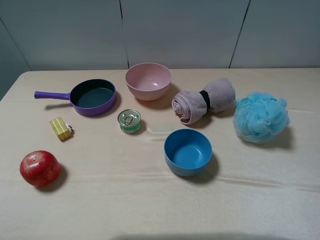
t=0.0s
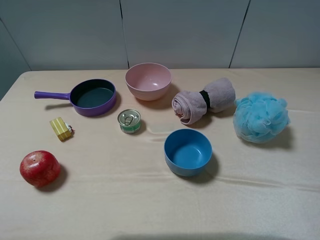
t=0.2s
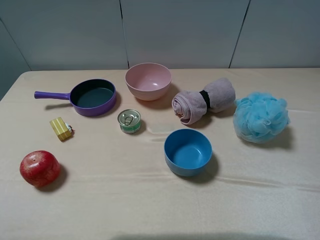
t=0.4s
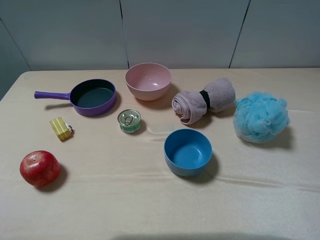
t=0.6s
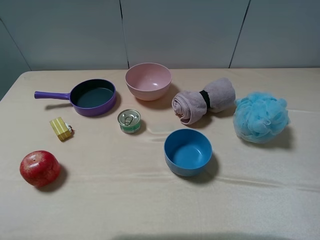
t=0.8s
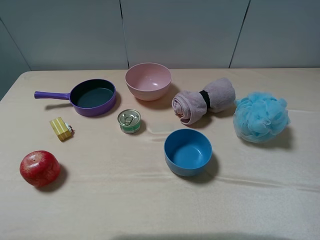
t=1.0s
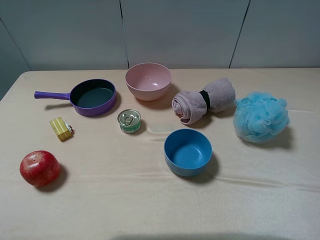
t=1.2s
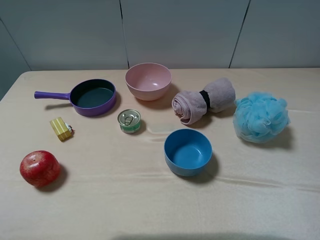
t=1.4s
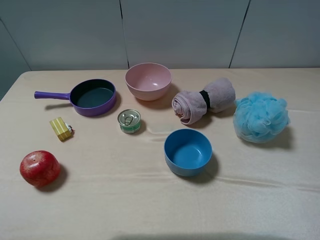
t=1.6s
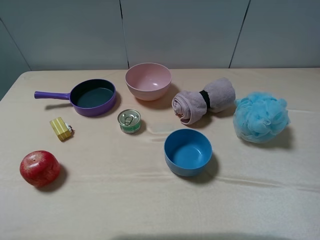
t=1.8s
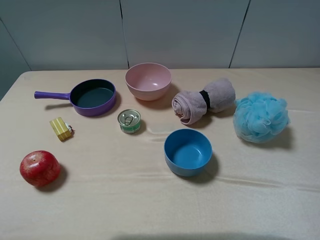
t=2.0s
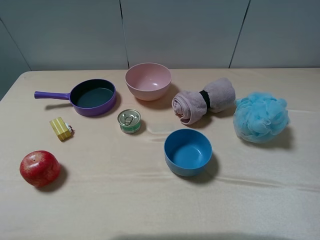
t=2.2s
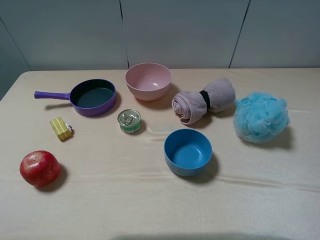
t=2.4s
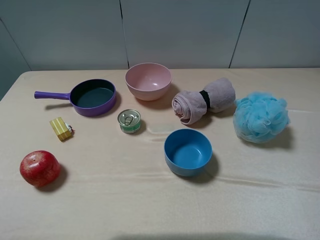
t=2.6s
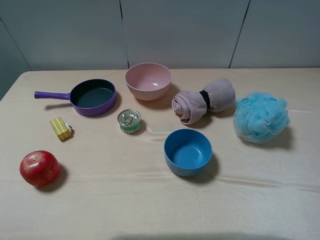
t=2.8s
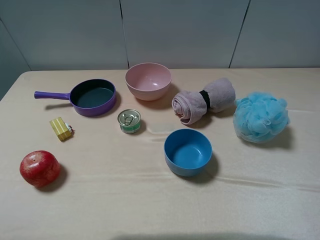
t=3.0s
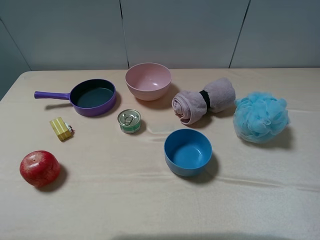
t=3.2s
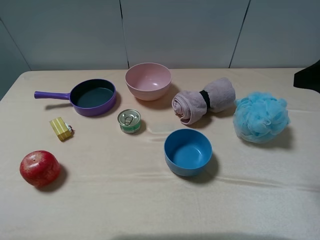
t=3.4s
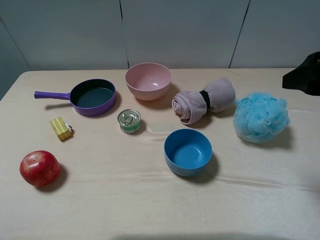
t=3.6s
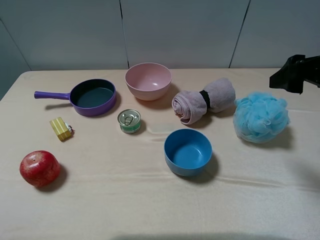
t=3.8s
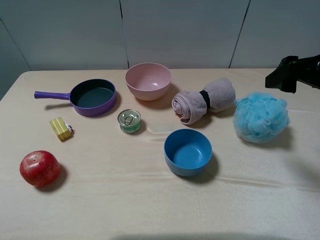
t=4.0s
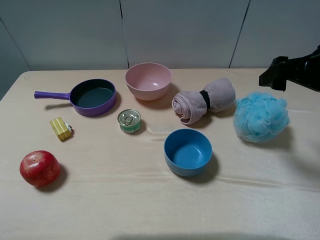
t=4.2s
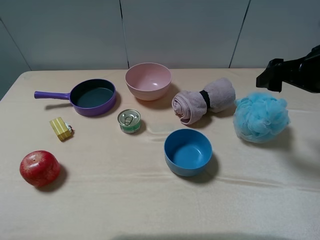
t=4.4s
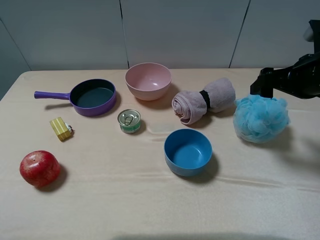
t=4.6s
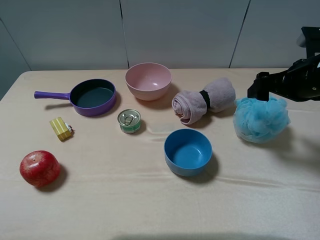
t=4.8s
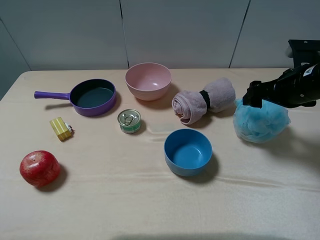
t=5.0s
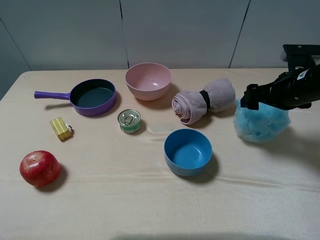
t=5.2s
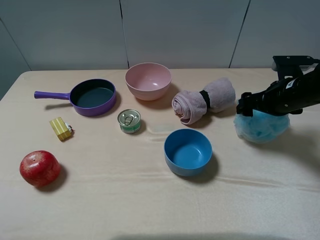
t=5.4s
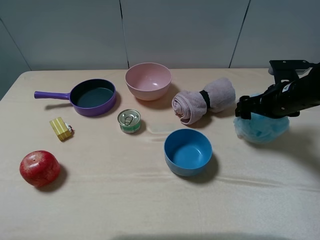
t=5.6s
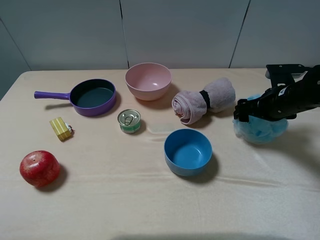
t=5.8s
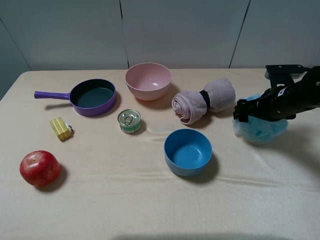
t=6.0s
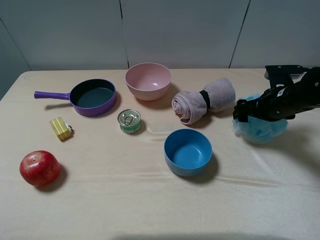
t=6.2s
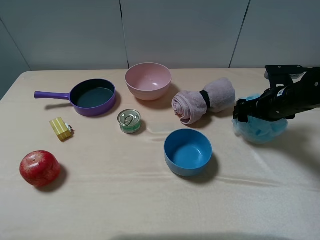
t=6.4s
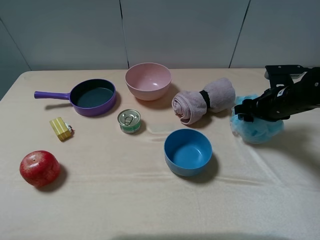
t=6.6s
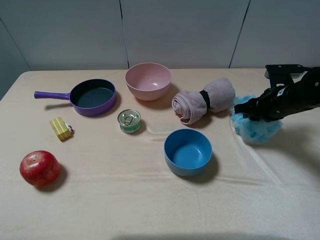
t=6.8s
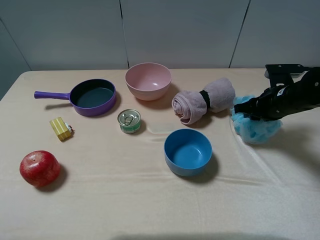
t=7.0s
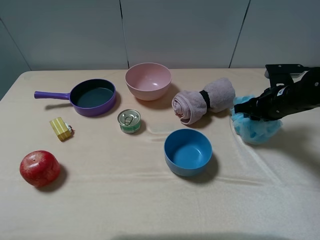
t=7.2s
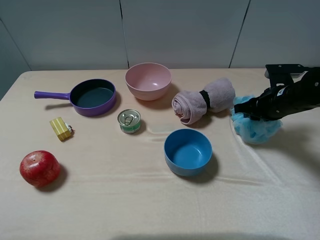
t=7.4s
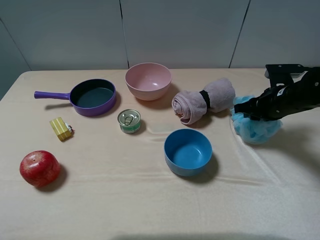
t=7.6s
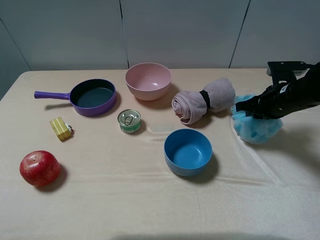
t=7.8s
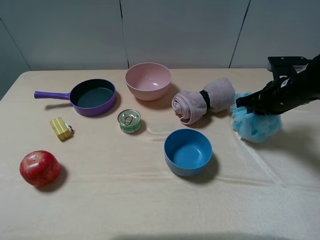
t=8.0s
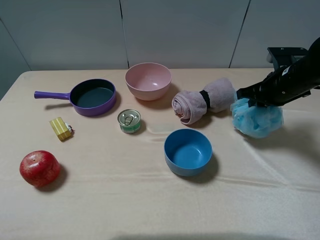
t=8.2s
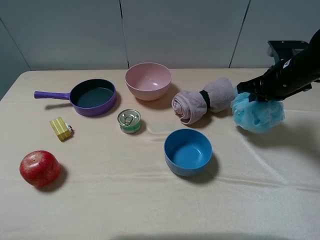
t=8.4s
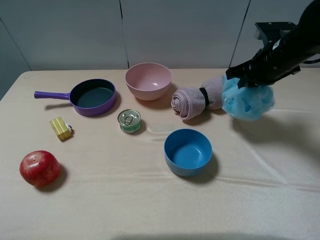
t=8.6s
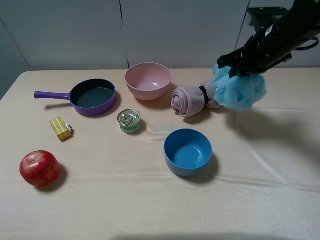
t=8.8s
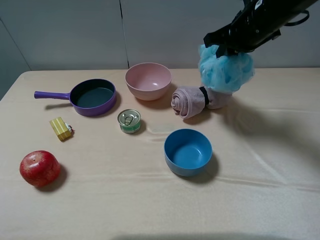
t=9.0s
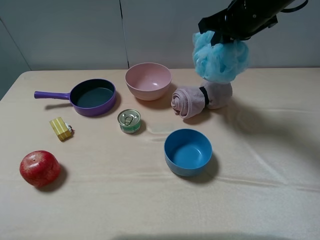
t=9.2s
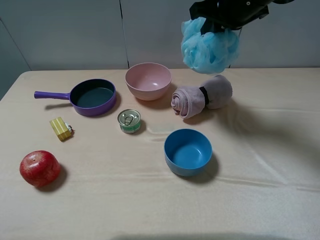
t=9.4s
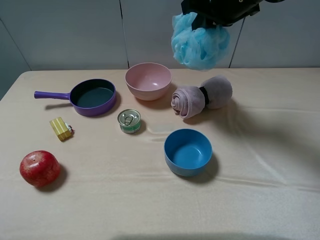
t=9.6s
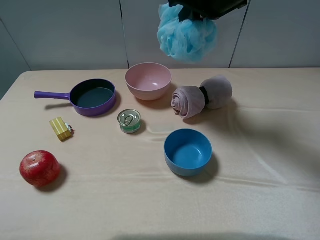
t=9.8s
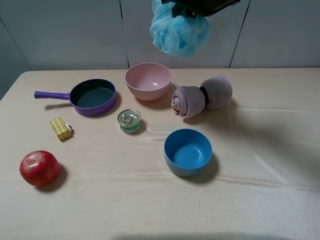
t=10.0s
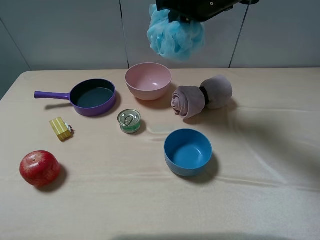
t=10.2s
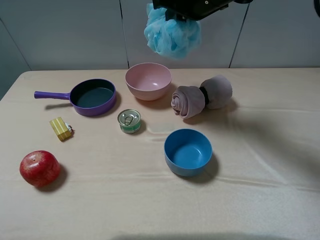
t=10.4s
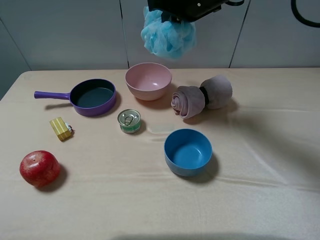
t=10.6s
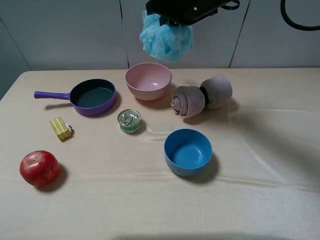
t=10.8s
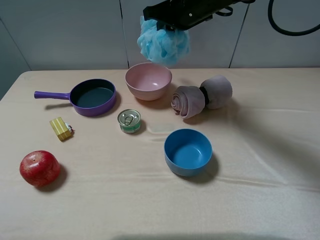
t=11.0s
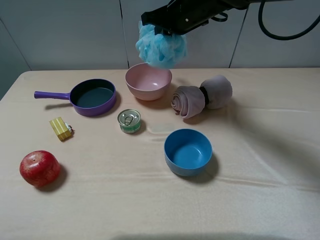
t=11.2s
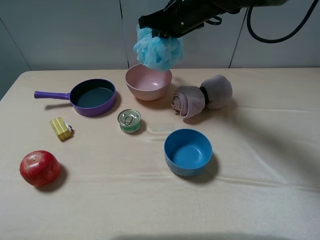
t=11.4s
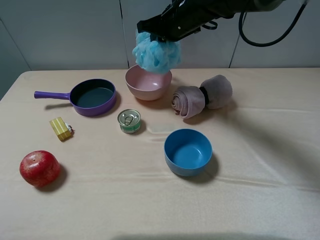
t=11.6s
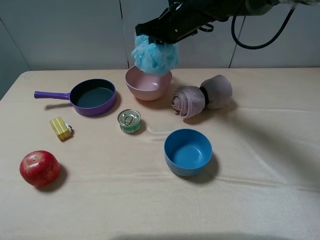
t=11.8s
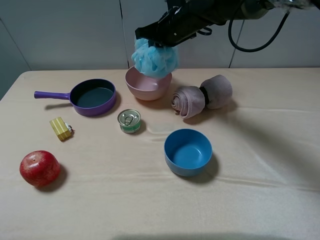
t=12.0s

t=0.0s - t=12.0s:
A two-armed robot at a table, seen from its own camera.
Task of the whole recording: pick up an item with a gripper and place it in a random container on the table.
Step, t=0.0s - t=6.8s: Grasp the shower sphere with the right gripper.
t=0.0s - t=1.6s: Both grippers stay put.
t=3.0s - t=4.4s: The right gripper moves forward and downward, approximately 20 cm.
t=4.4s - t=6.0s: The right gripper moves downward and forward, some 15 cm.
t=6.0s - t=7.6s: The right gripper closes up.
t=7.6s - t=9.0s: The right gripper is displaced upward and to the left by roughly 20 cm.
t=9.0s - t=10.4s: The right gripper travels to the left by about 10 cm.
t=10.4s - t=12.0s: The right gripper heads downward and forward, covering approximately 10 cm.

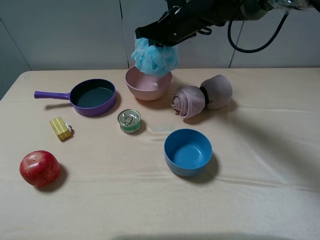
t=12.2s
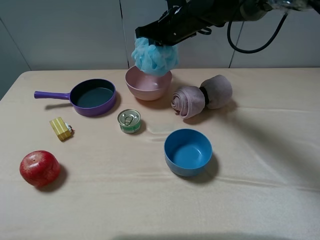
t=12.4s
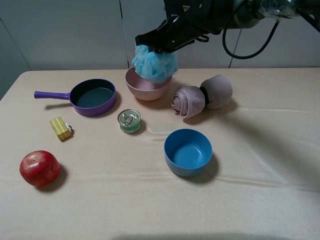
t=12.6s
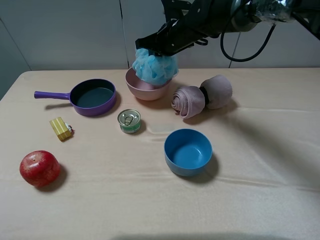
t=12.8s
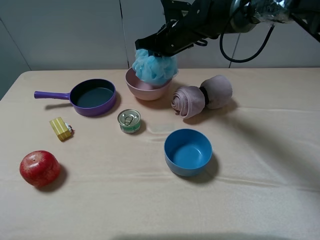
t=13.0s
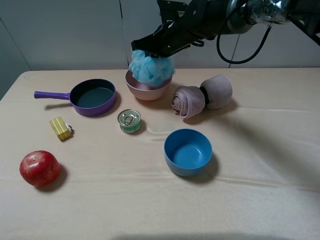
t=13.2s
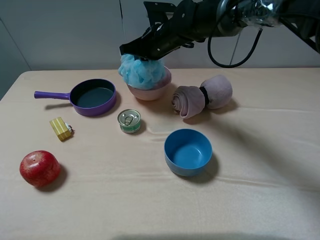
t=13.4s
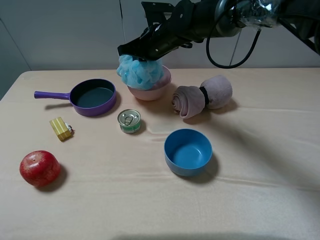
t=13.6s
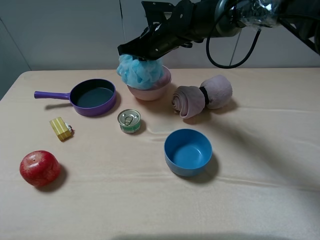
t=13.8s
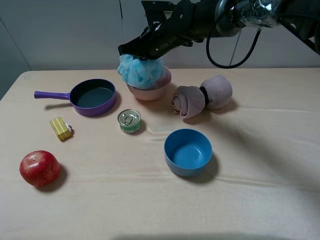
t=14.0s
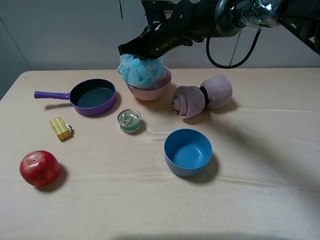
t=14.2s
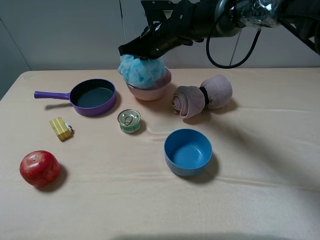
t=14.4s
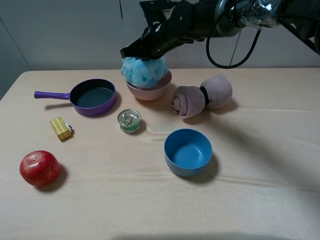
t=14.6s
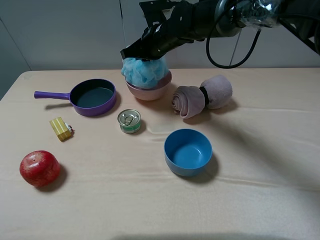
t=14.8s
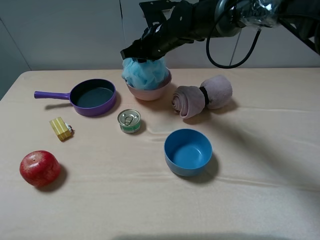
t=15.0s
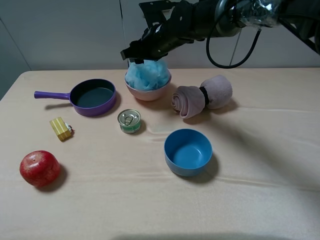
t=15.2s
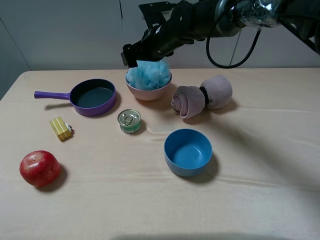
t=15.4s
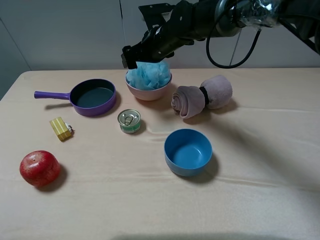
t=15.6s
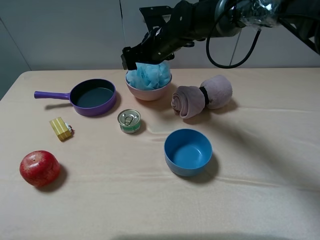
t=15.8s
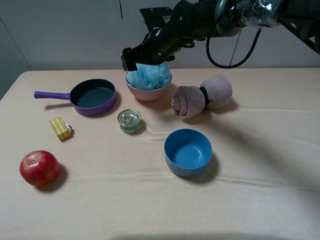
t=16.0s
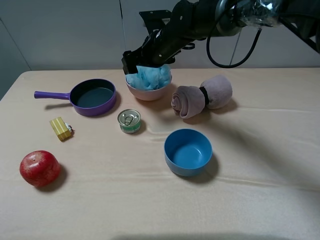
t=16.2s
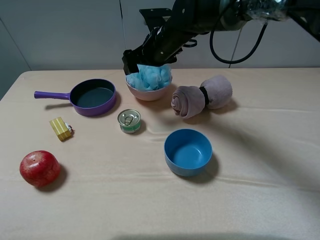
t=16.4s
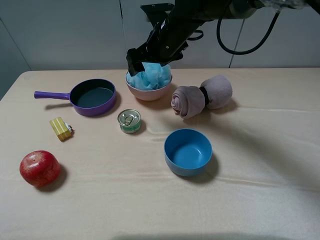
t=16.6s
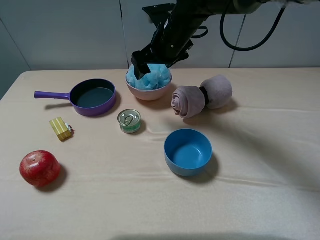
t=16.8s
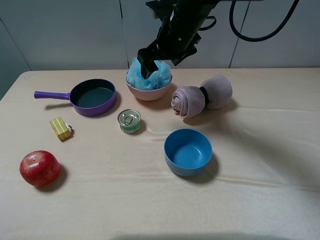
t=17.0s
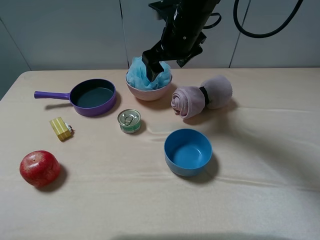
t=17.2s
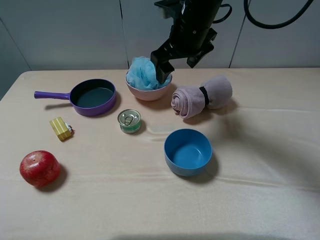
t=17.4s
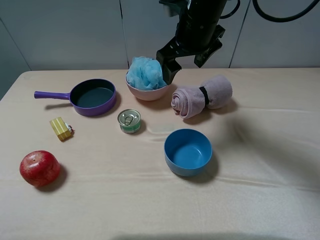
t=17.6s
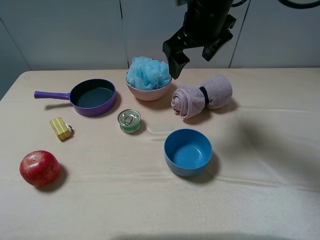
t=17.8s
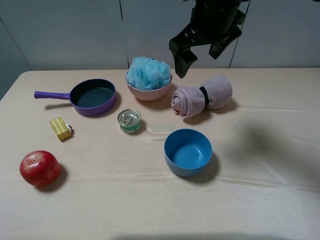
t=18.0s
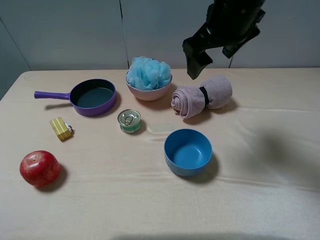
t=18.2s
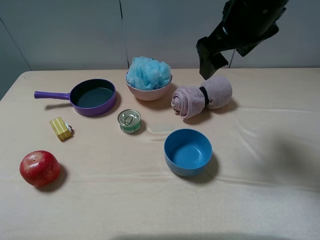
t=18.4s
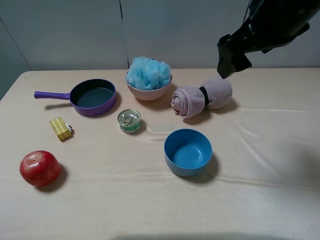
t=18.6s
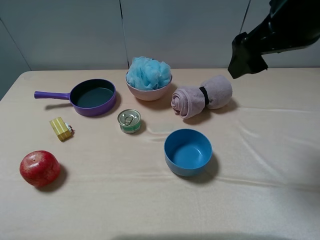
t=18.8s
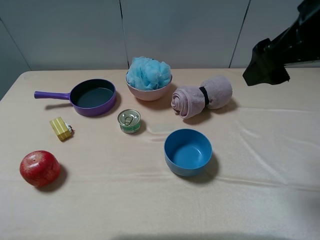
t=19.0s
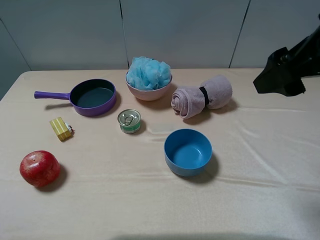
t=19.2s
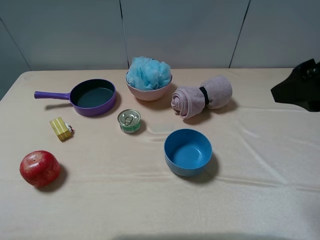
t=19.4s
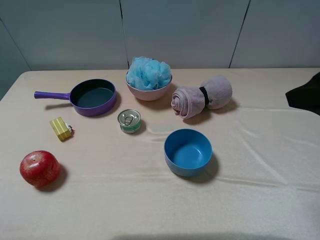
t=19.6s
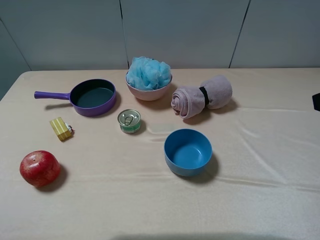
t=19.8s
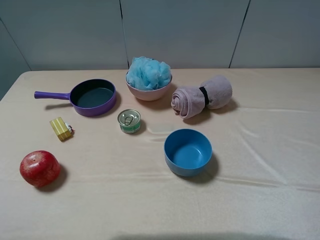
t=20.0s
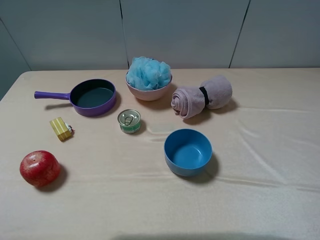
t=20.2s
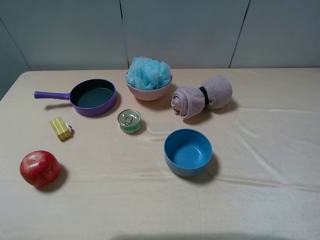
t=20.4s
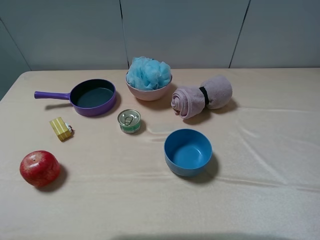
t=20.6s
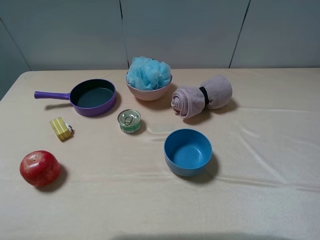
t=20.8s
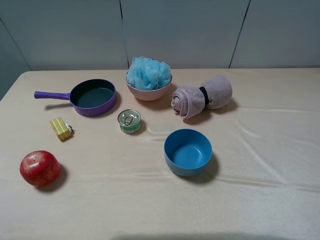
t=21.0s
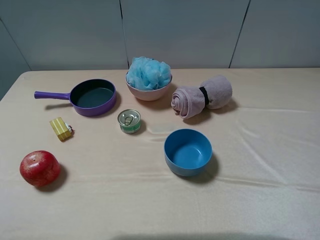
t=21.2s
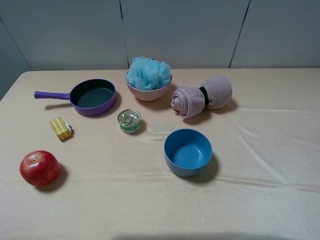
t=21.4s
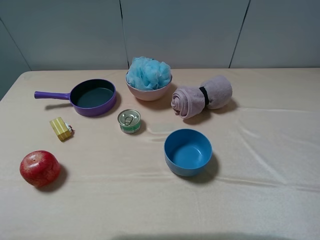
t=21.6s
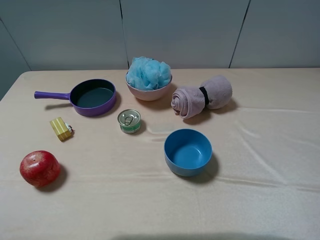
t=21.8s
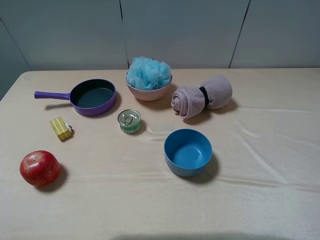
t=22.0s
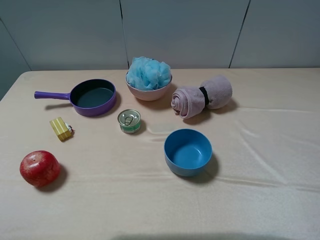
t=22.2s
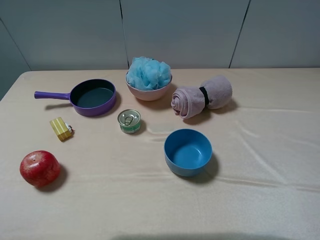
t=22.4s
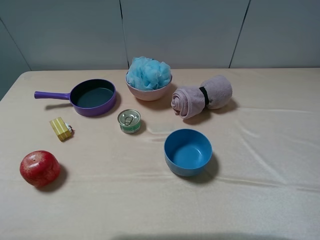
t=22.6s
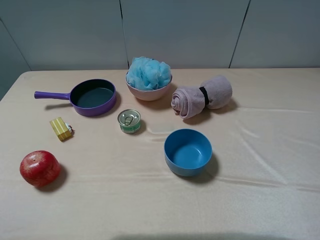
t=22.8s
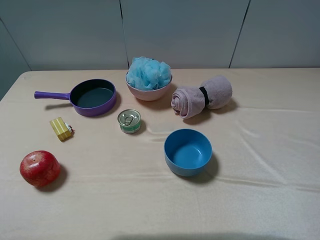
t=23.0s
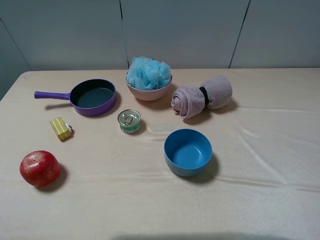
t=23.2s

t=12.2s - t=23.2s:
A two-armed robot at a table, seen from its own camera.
Task of the whole recording: pick up an item with a gripper and place it in a random container on the table.
Step, t=12.2s - t=15.8s: Place the shower sphere into the pink bowl with the right gripper.
t=12.2s - t=13.8s: The right gripper shifts by roughly 5 cm.
t=13.8s - t=15.4s: The right gripper opens its fingers.
t=15.4s - t=17.0s: The right gripper changes place by about 5 cm.
t=17.0s - t=18.4s: The right gripper travels backward, to the right and upward by approximately 15 cm.
t=18.4s - t=20.0s: The right gripper travels backward and to the right by about 25 cm.
